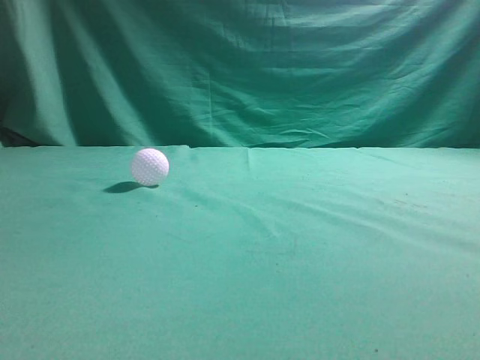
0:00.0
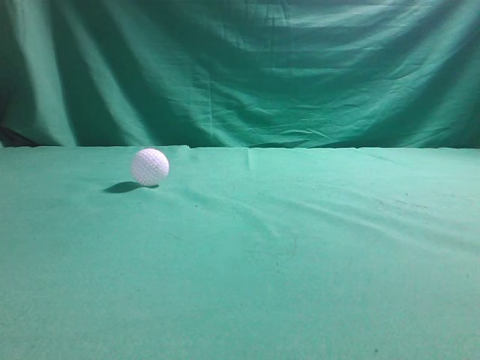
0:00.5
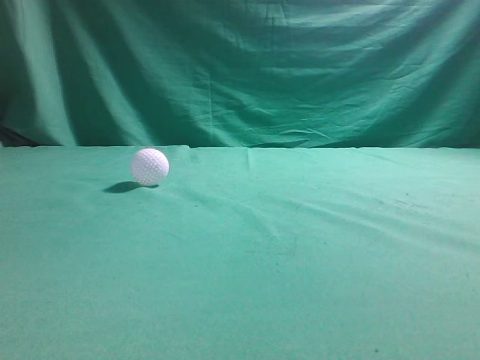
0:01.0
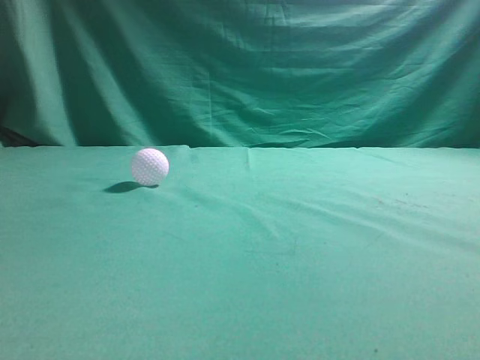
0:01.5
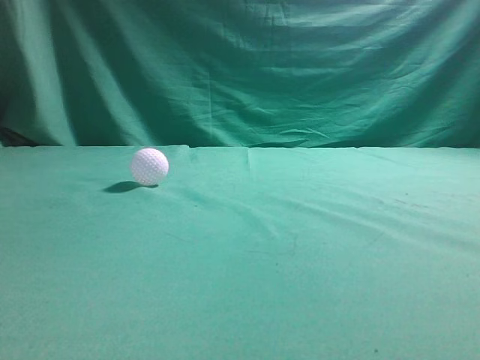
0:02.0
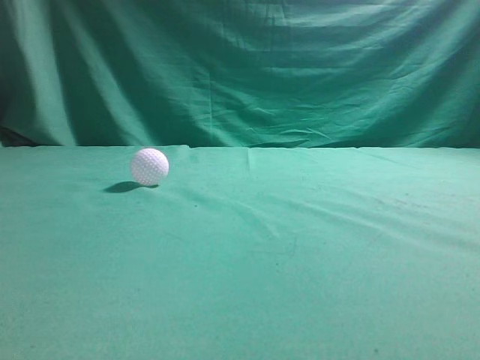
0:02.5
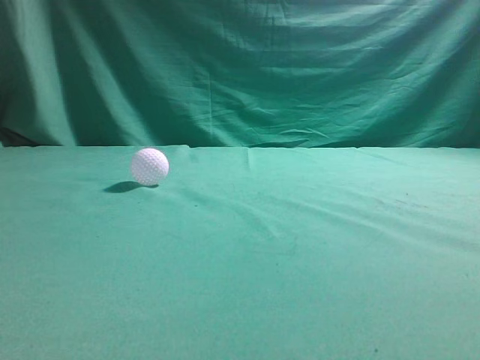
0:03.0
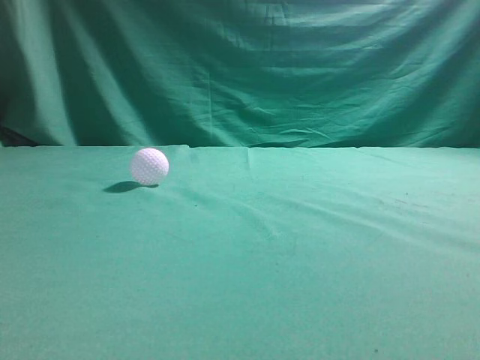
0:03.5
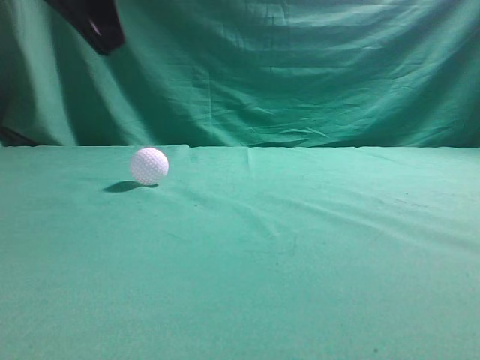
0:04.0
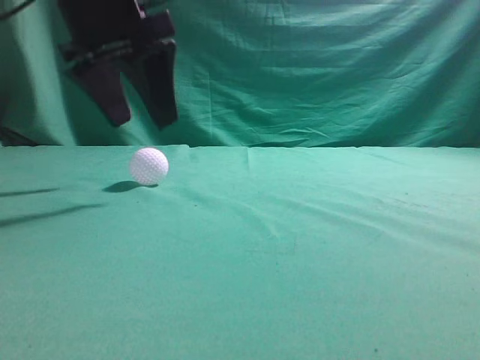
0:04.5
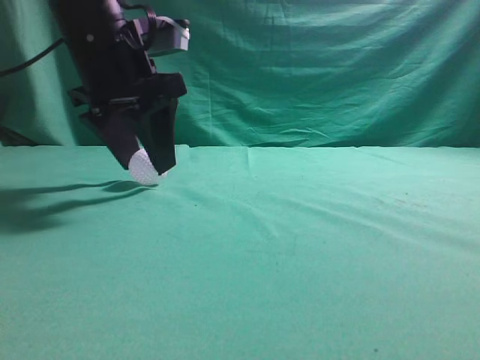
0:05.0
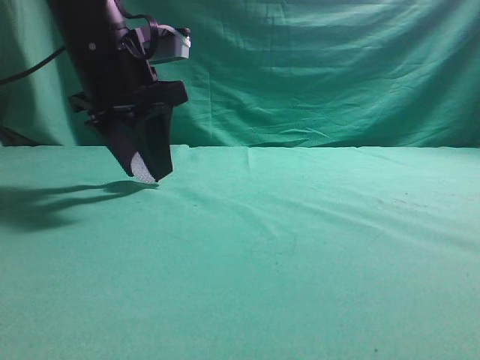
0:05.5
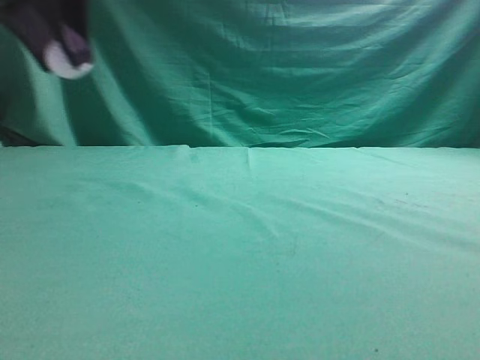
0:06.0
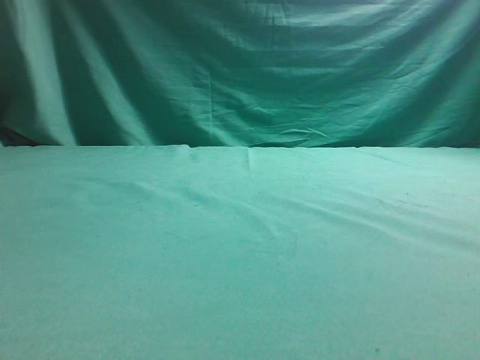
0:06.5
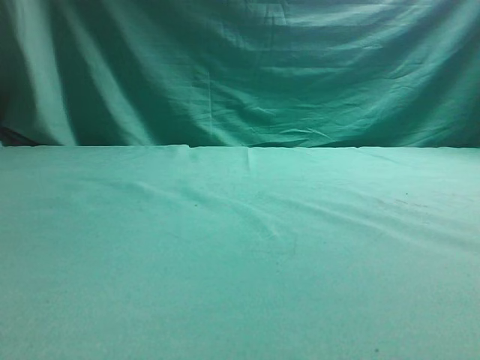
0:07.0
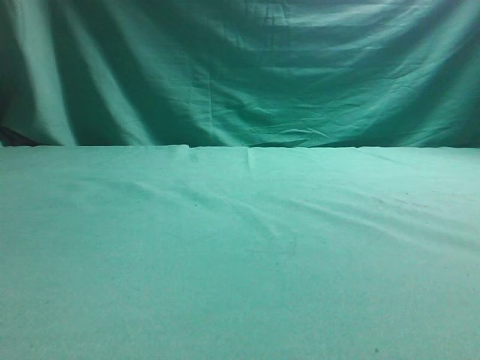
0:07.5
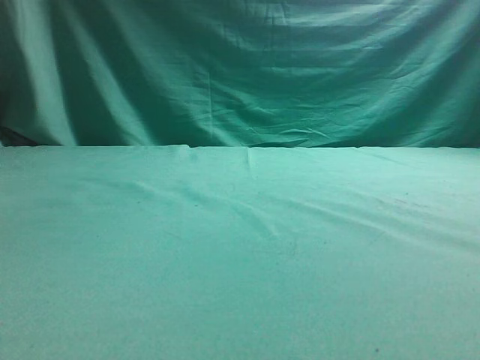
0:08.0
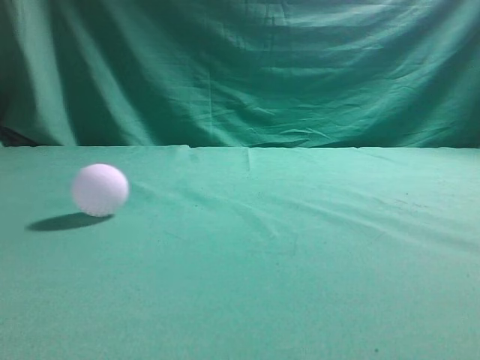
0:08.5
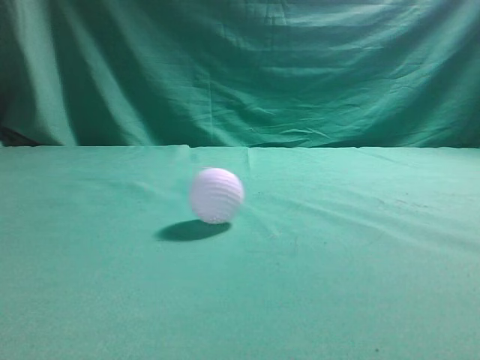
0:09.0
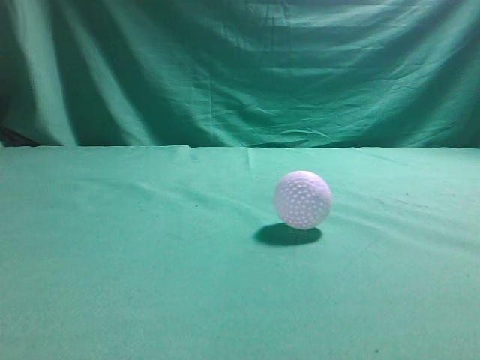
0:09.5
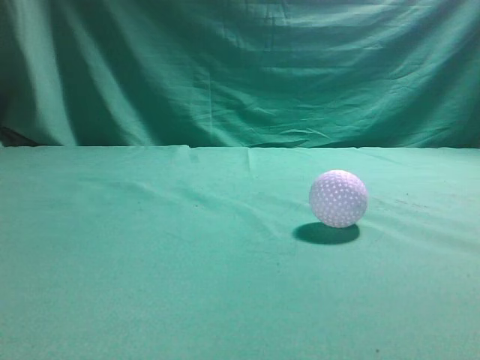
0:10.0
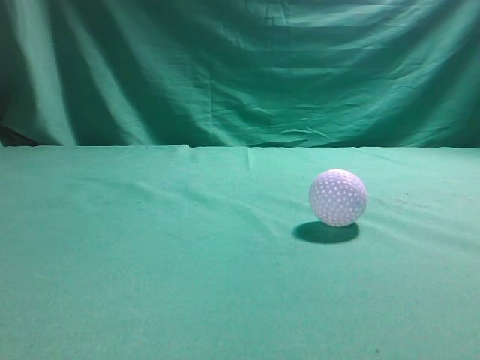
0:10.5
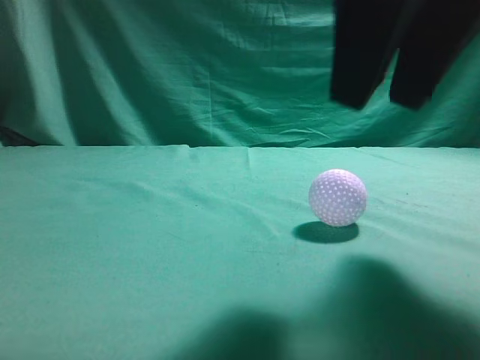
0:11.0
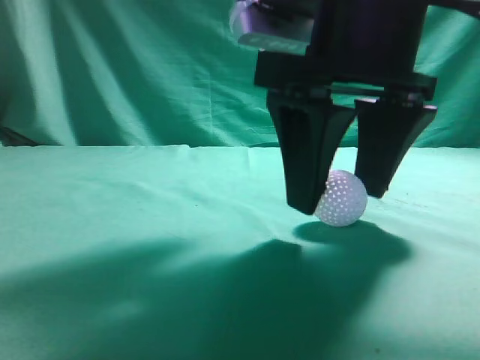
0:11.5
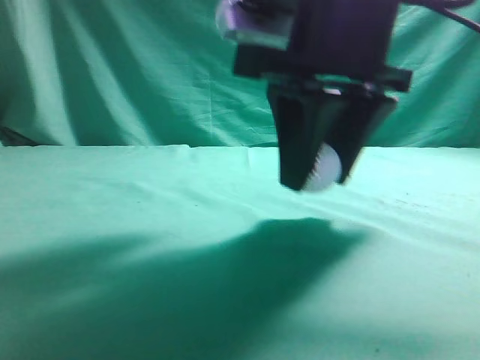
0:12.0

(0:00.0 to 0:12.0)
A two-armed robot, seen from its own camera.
Task of the whole recording: pick up the ball and place it on the plate, then pick up the ball from the plate and put it in the center of the table.
Step, 0:00.0 - 0:05.5: Grab the spherical object with your left arm.
Step, 0:06.0 - 0:07.5: Place the sphere on the white object.
Step, 0:08.0 - 0:12.0: Grab the rolling spherical object.
0:02.0 - 0:04.0: The left gripper is displaced forward and to the right by roughly 25 cm.
0:04.0 - 0:06.0: The left gripper moves forward, approximately 5 cm, moves about 10 cm downward and comes back, and opens.
0:06.0 - 0:08.0: The left gripper moves to the left, roughly 15 cm.
0:08.0 - 0:10.0: The right gripper heads upward, covering roughly 15 cm.
0:10.0 - 0:12.0: The right gripper travels to the left, forward and downward by some 25 cm, and opens its fingers.

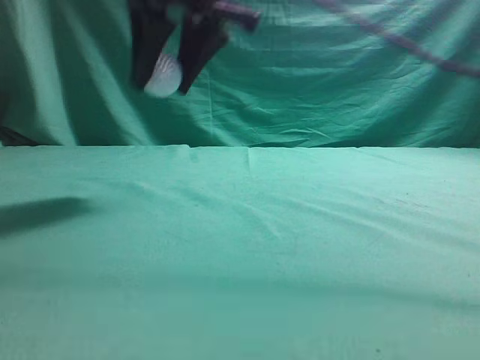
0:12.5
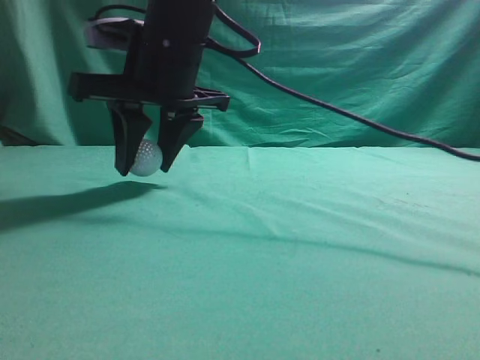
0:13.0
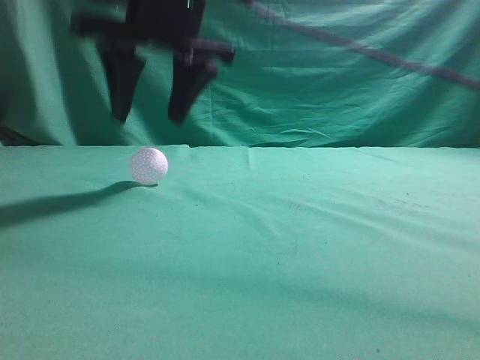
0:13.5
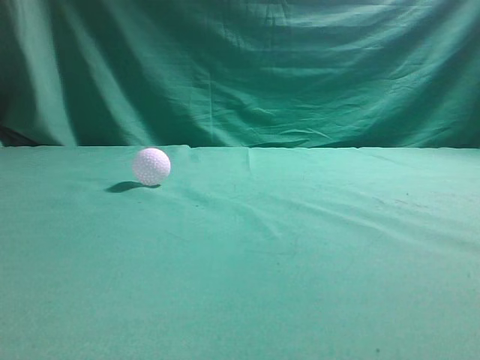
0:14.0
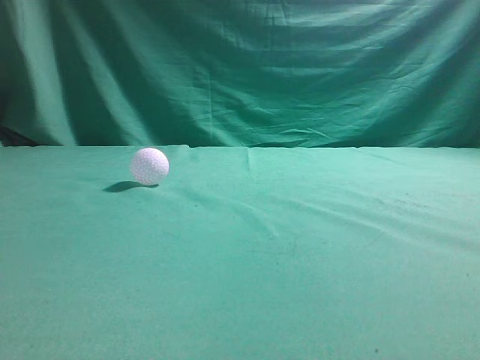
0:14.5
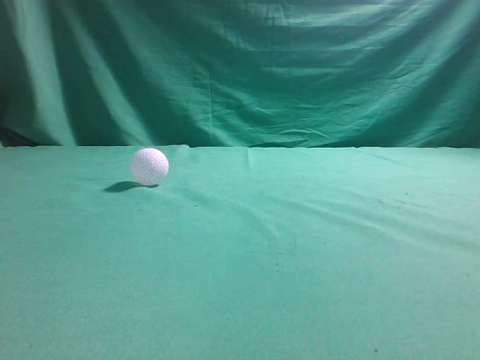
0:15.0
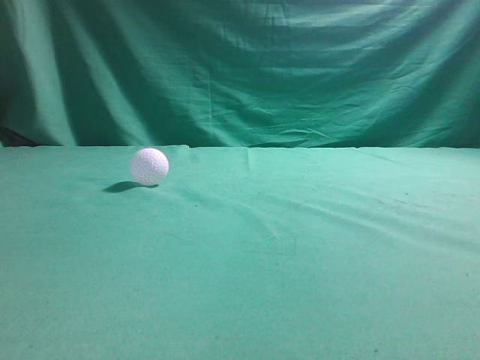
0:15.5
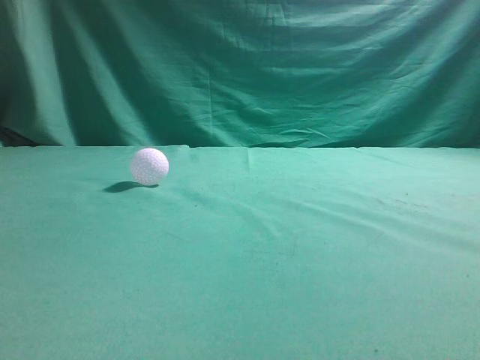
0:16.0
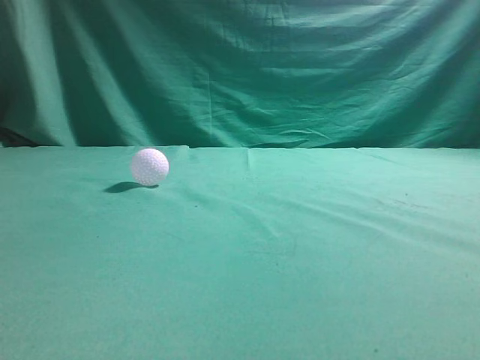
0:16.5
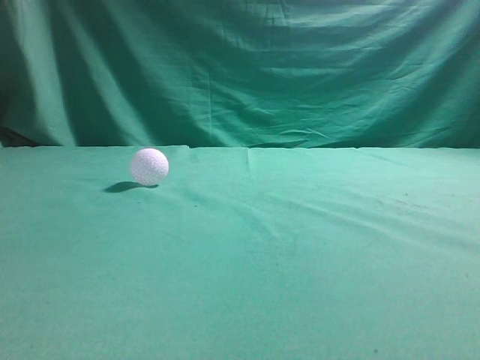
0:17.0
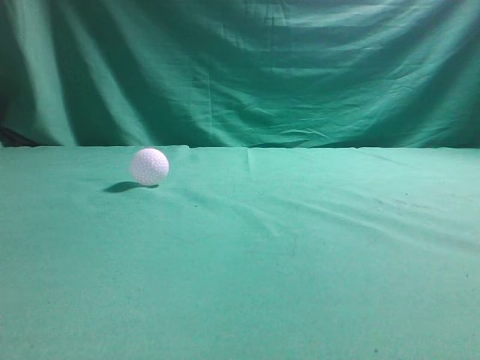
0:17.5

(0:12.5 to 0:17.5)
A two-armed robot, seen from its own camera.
Task of the whole recording: pick up the ball and place it on the plate, then pick up the ball from the plate and put it in the center of the table.
0:12.5 - 0:15.0: The right gripper moves up and down over roughly 30 cm, changing direction 2 times, and closes up.
